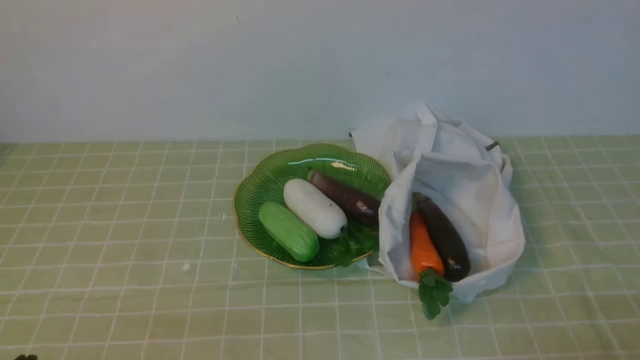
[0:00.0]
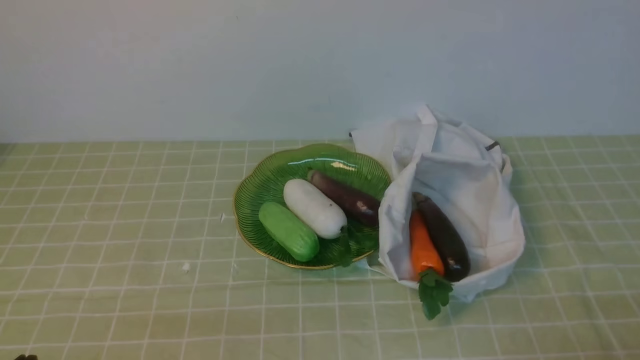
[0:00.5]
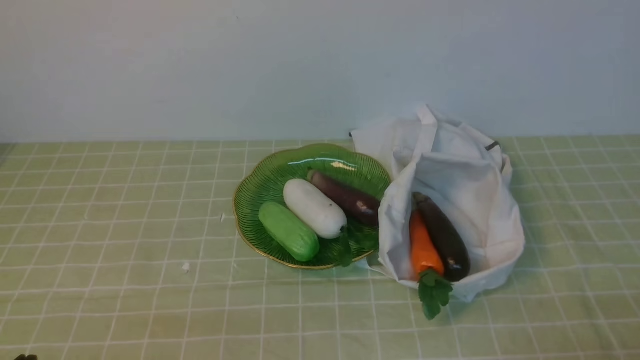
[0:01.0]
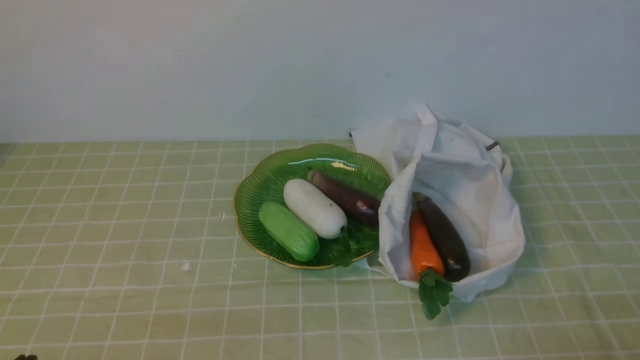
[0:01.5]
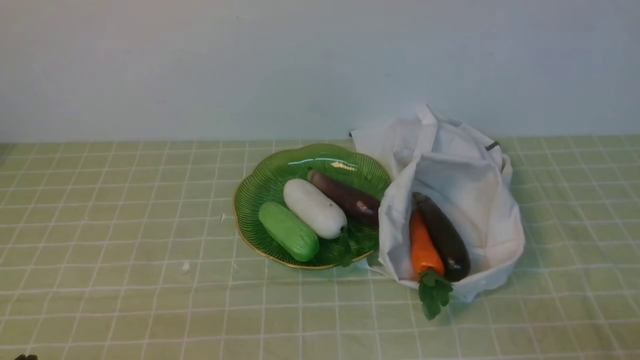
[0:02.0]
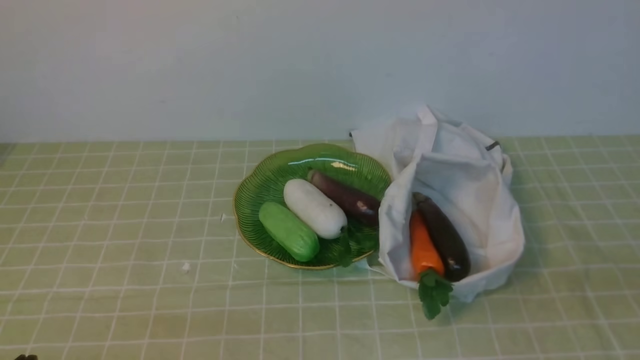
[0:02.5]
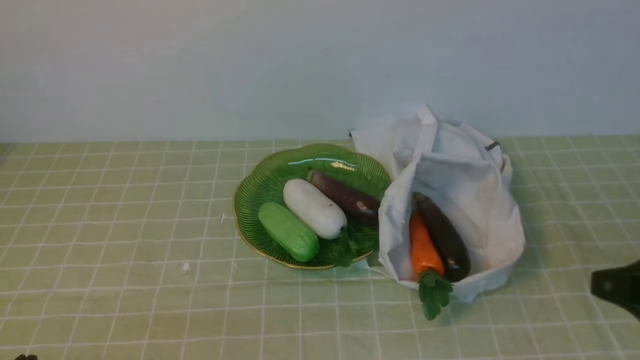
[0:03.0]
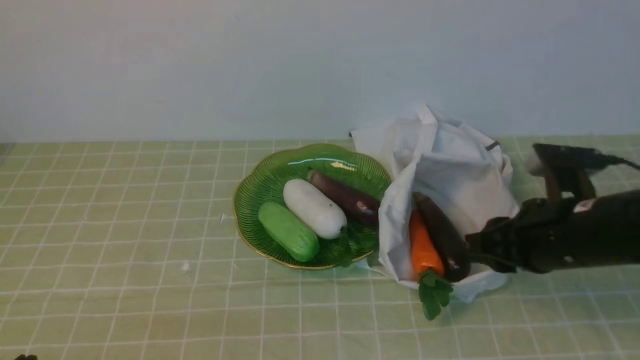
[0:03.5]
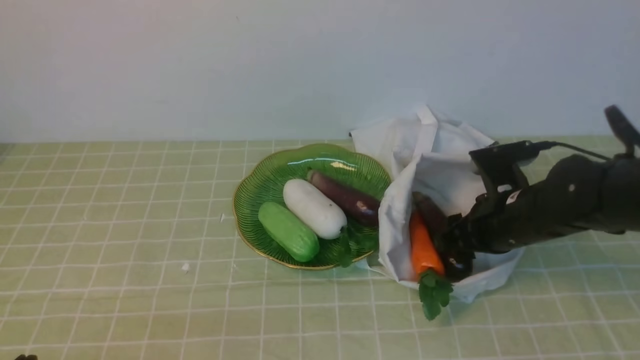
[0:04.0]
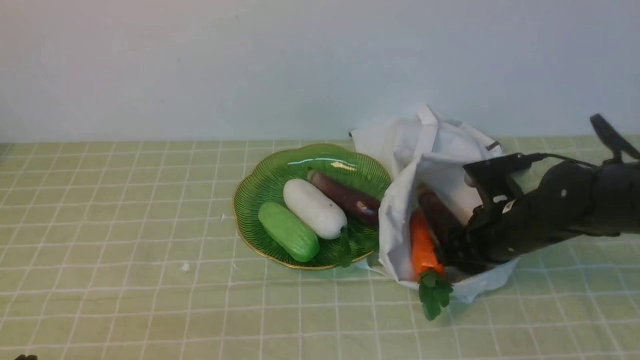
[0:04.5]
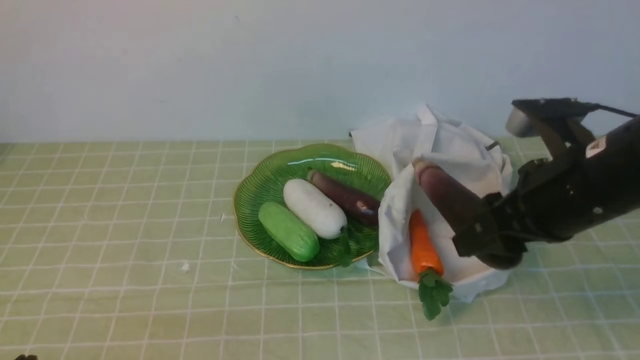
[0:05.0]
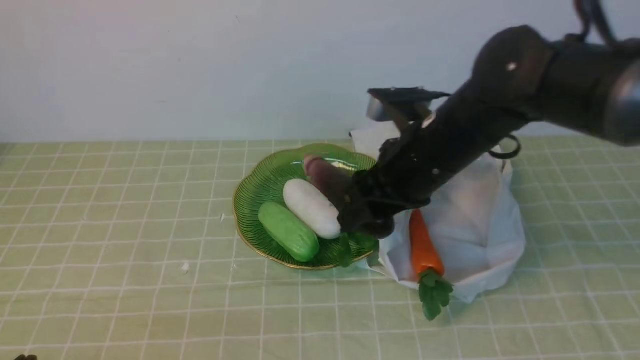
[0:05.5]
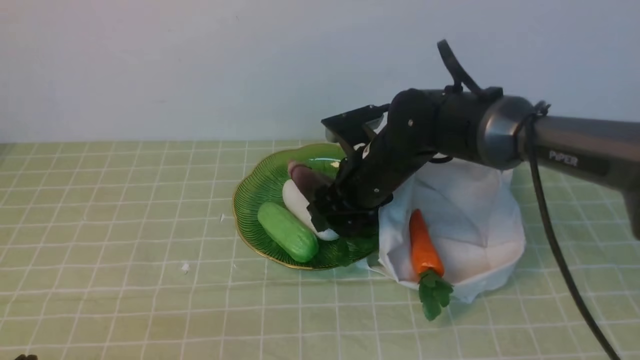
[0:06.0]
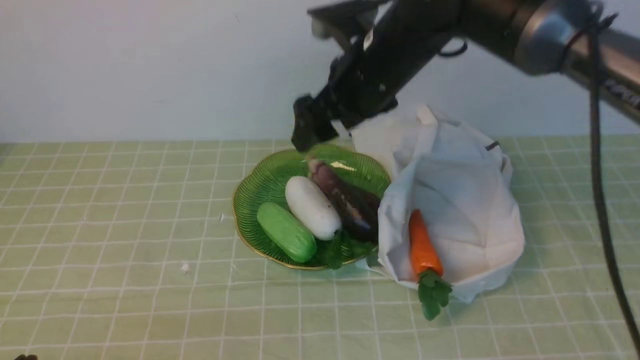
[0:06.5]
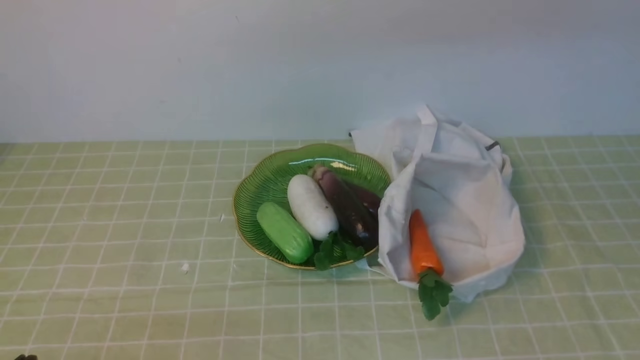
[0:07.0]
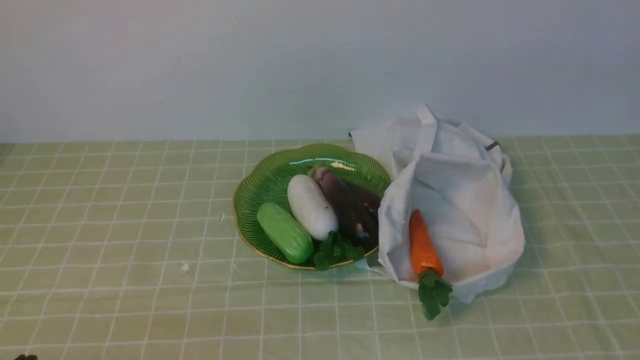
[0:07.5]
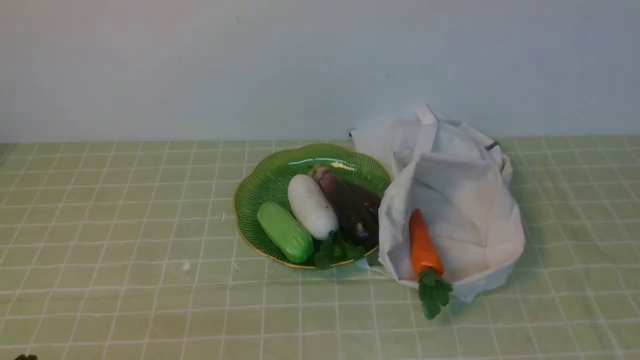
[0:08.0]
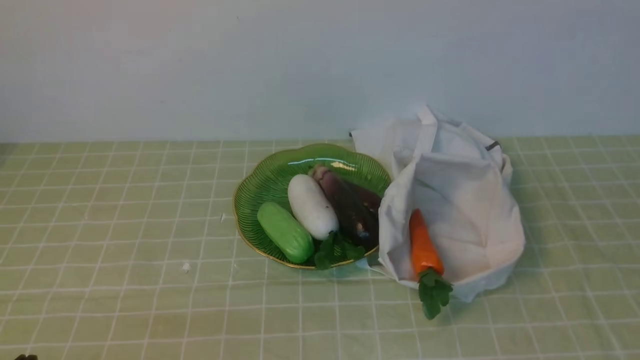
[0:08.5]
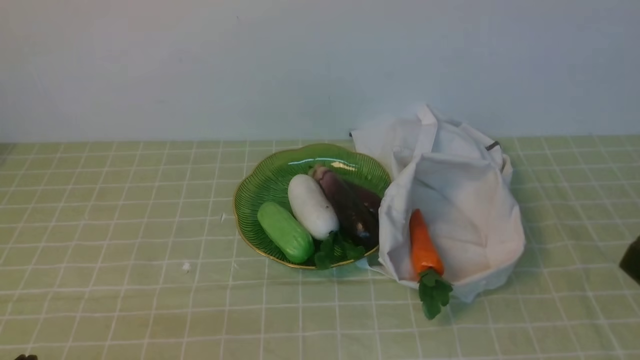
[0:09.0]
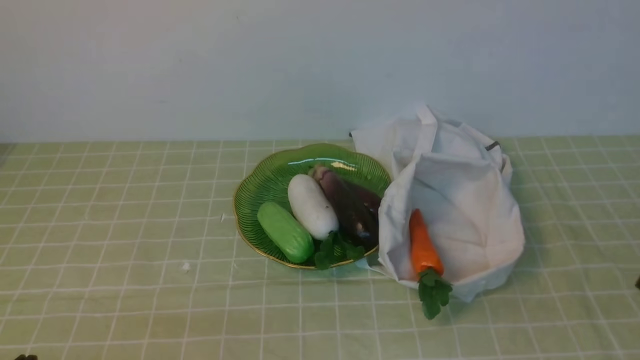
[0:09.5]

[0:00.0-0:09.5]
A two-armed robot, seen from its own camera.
Task of the whole recording: take vegetables from bag on green coffee tablecloth place on plate.
Step, 0:00.0 to 0:04.0: Grasp the eggplant with right gripper.
Step, 0:04.5 to 0:06.0: Place the eggplant on the plate with right gripper.
0:02.0 to 0:04.0: The right gripper moves forward, about 25 cm, and opens its fingers.
0:04.0 to 0:05.5: The right gripper heads to the left and upward, covering roughly 15 cm.
0:05.5 to 0:07.5: The right gripper shifts about 40 cm upward, backward and to the right, and closes its fingers.

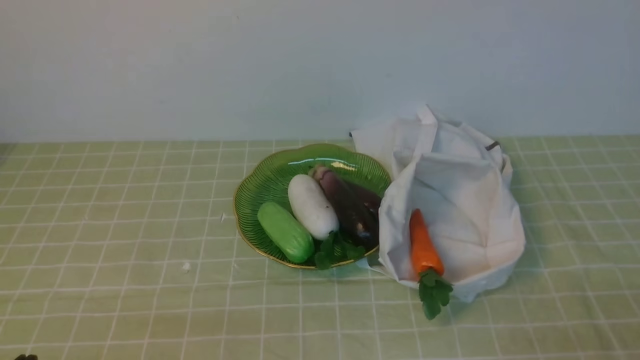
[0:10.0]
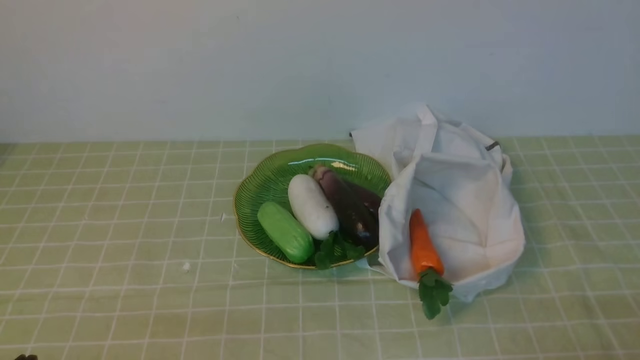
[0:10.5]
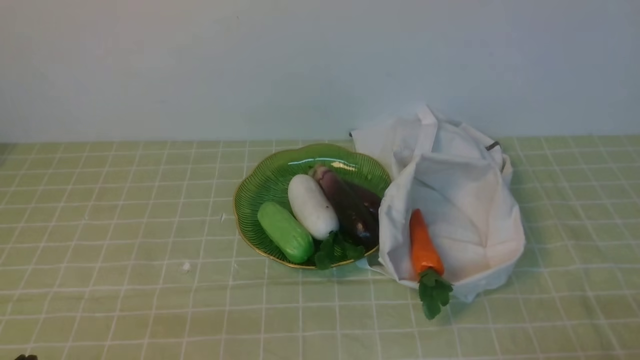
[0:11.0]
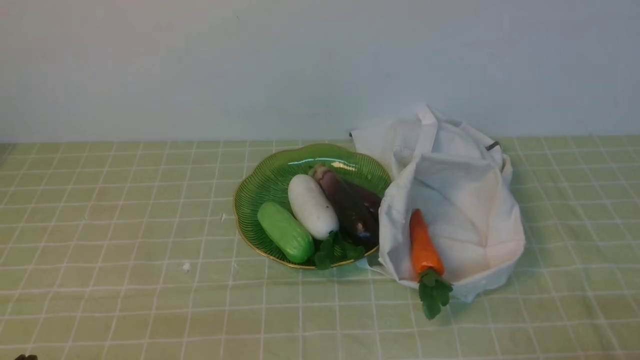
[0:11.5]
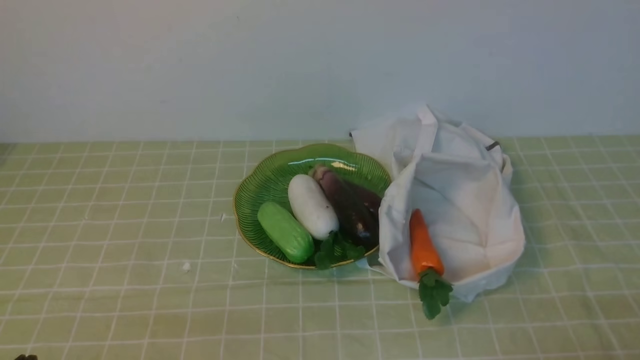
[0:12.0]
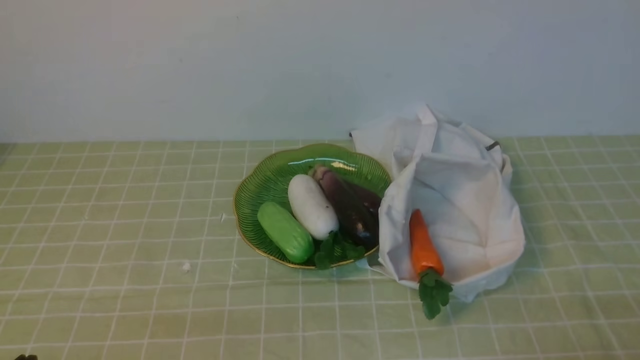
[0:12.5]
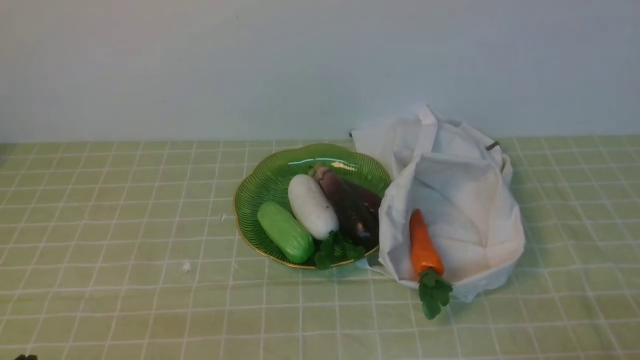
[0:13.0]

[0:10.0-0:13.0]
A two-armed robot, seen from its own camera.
Task of the whole recording: take vegetables from bag on green coffee tablecloth place on plate.
0:11.5 to 0:13.0: Both grippers stay put.
